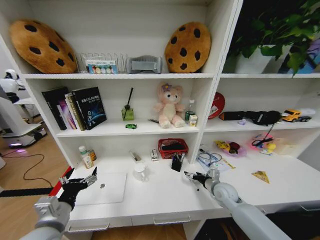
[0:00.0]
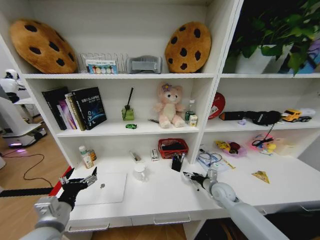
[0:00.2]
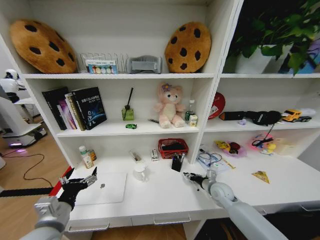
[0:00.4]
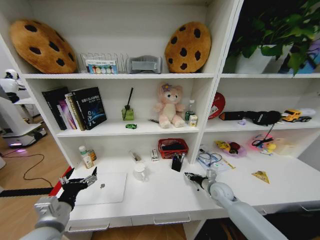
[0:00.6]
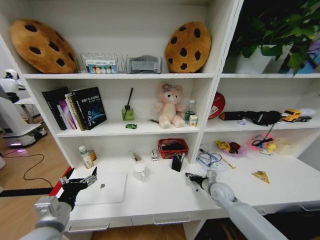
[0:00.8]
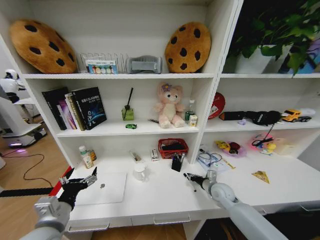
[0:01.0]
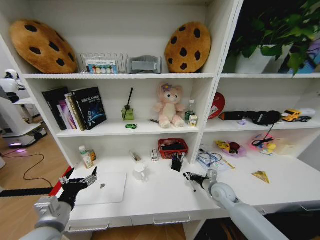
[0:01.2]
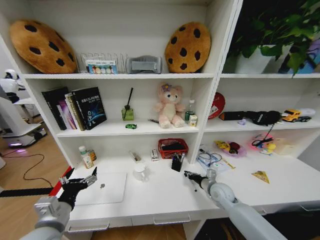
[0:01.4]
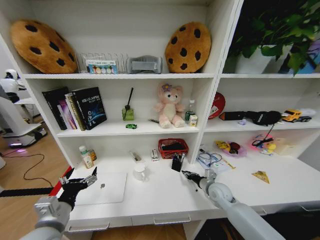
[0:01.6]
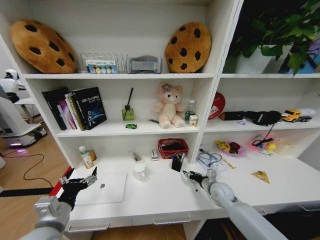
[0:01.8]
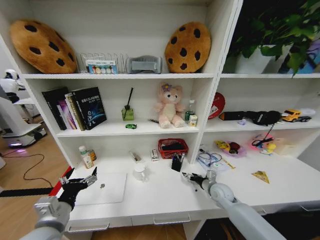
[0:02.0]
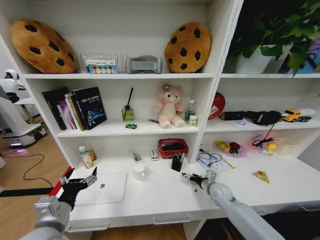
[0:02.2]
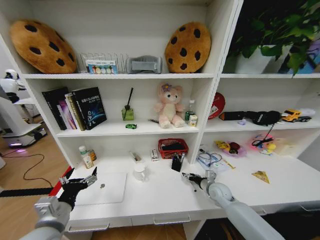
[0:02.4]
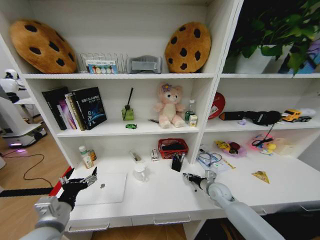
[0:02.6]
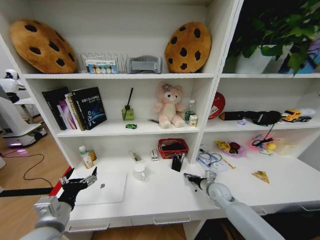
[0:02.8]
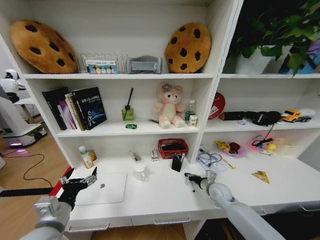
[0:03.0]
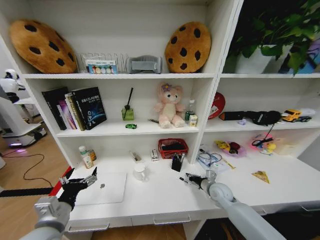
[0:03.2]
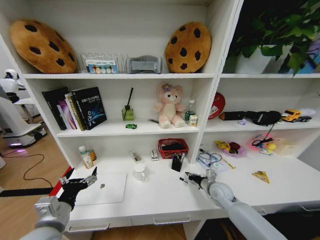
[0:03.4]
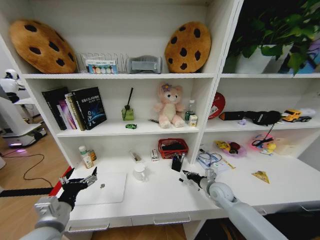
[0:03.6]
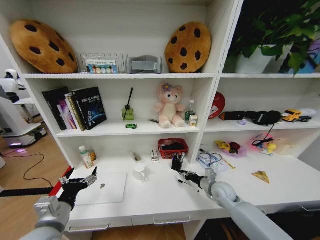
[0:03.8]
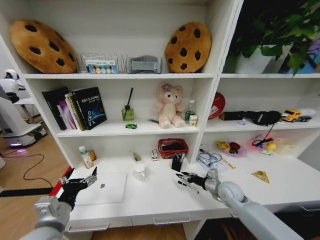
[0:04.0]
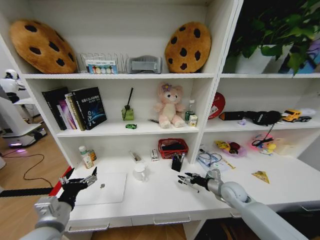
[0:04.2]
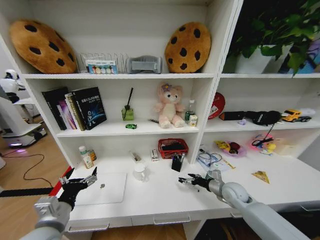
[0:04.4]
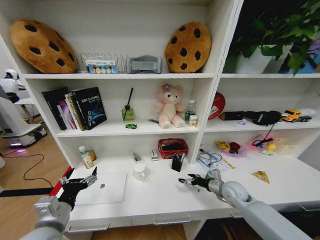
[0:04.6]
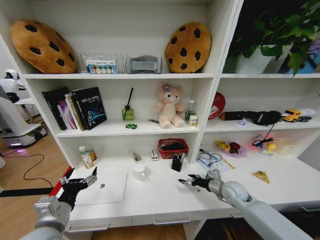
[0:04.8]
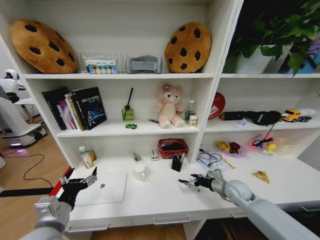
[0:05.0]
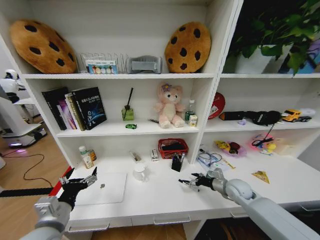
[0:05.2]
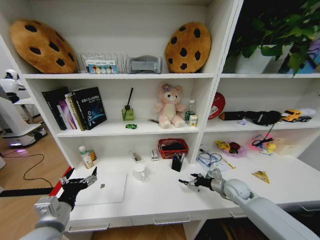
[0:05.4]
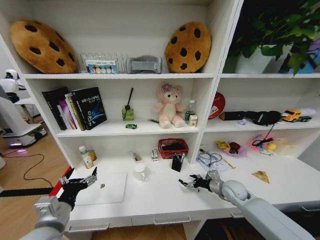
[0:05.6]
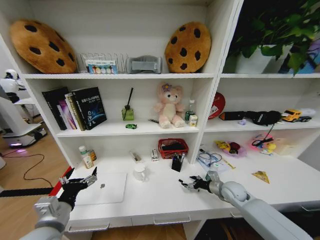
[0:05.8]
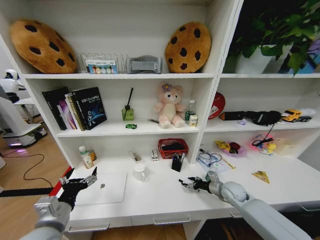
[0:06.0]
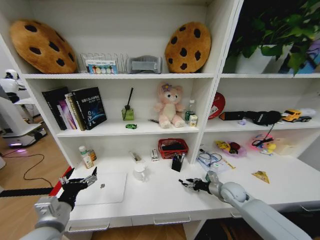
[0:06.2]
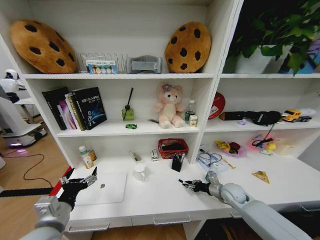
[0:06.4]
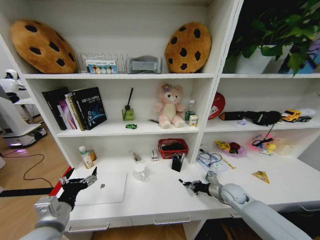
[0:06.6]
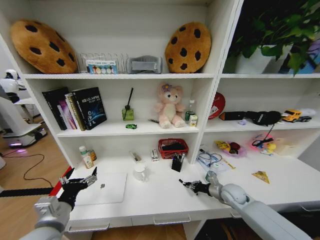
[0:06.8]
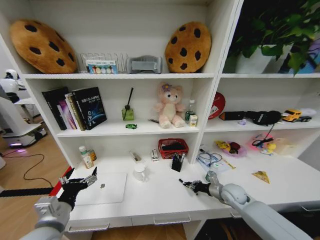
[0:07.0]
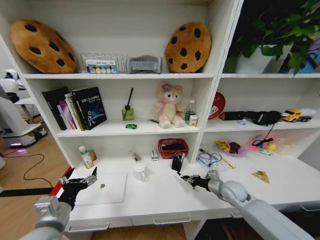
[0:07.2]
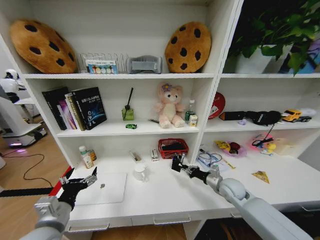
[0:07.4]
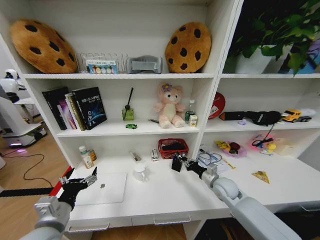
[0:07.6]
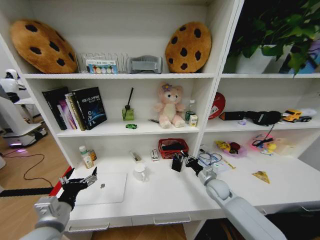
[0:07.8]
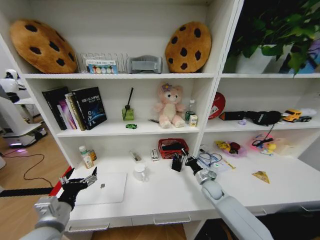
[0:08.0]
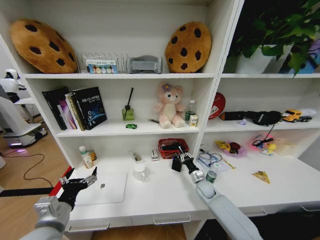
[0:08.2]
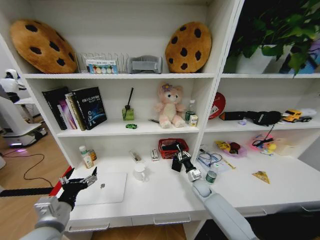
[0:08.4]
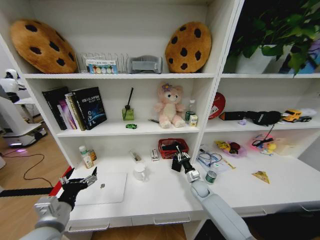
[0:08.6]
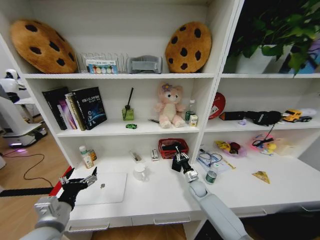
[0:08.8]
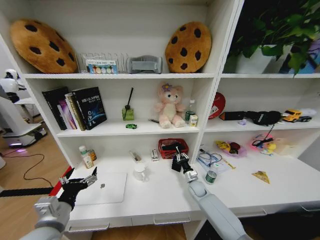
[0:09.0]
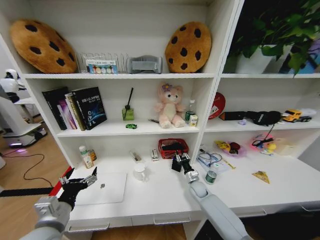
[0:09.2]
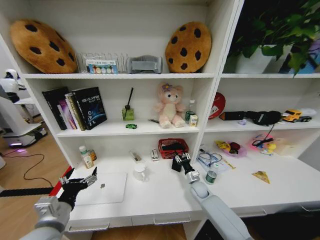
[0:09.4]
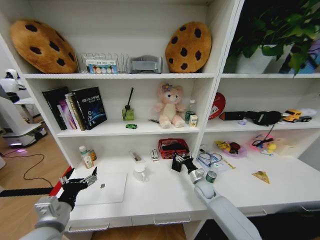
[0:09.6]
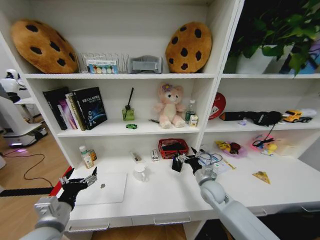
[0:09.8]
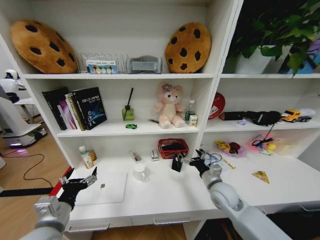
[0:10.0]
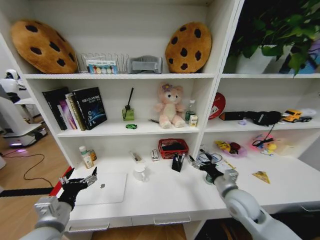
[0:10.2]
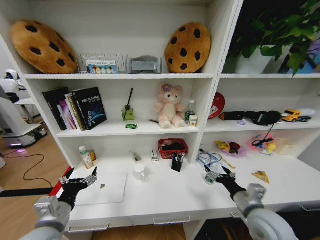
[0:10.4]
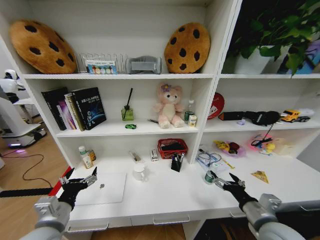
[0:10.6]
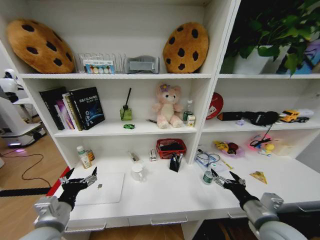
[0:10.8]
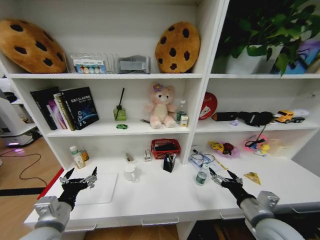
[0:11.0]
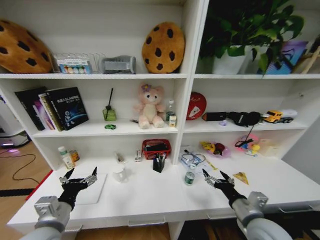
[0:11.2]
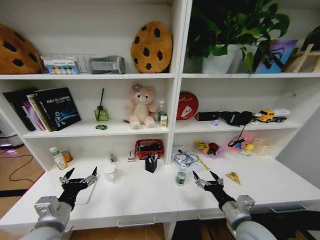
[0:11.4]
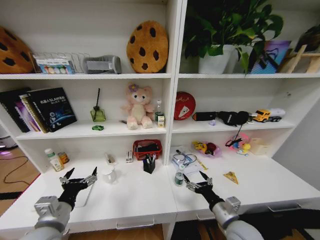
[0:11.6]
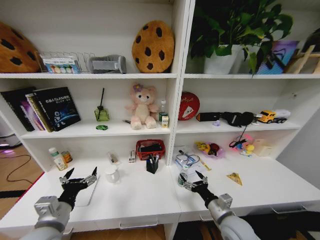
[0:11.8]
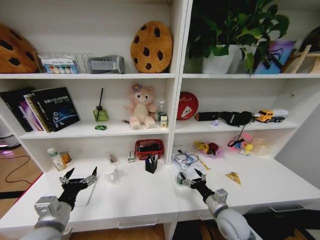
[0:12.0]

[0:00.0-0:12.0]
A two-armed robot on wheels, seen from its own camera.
Task of the whole recording: Organize the objects on the table.
0:00.0 to 0:01.6: The right gripper closes.
0:03.0 to 0:04.4: The right gripper moves some 5 cm, and opens its fingers.
0:04.4 to 0:06.0: The grippers make only small movements.
0:06.0 to 0:07.6: The right gripper heads to the left, covering about 5 cm, and closes up.
0:07.6 to 0:09.0: The right gripper shifts about 15 cm downward, to the left and forward.
0:09.0 to 0:10.4: The right gripper shifts some 30 cm backward and upward, and opens.
0:10.4 to 0:12.0: The right gripper goes about 10 cm downward and to the left.

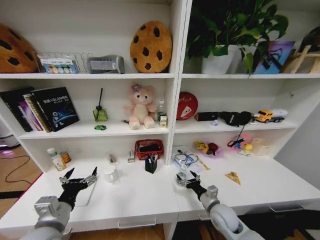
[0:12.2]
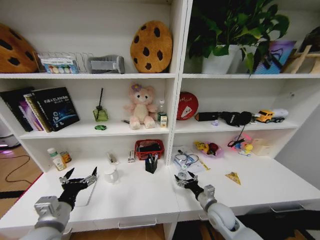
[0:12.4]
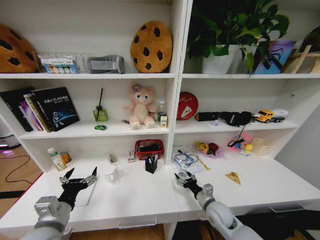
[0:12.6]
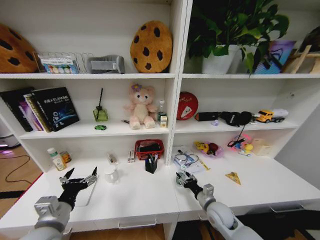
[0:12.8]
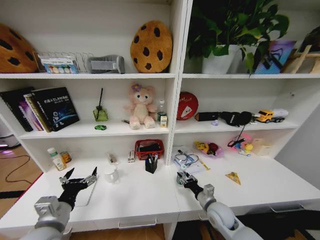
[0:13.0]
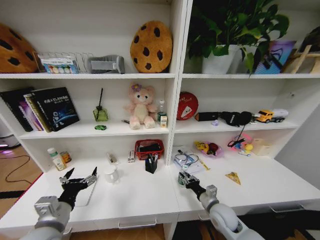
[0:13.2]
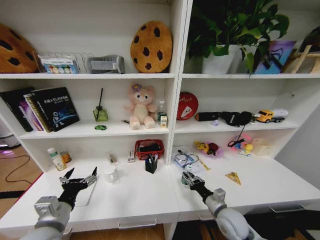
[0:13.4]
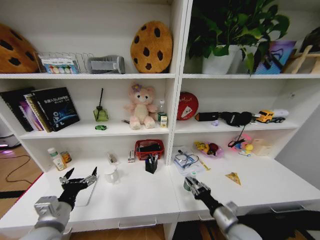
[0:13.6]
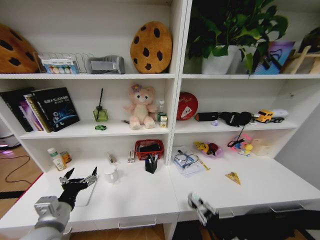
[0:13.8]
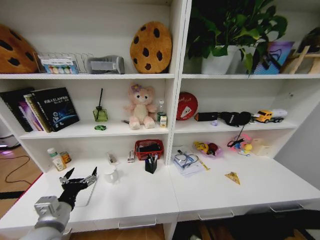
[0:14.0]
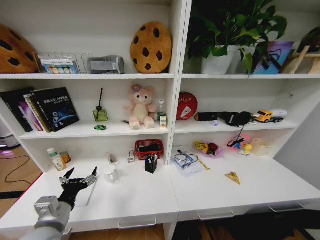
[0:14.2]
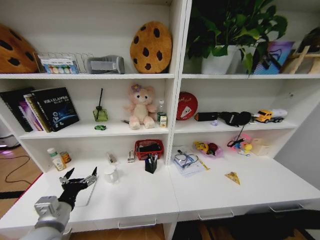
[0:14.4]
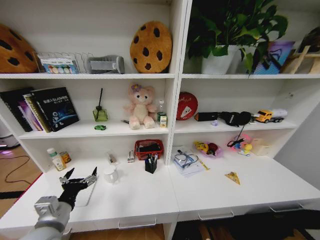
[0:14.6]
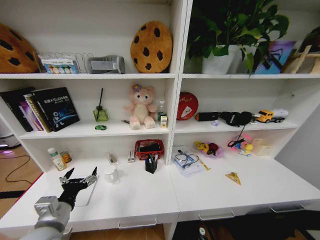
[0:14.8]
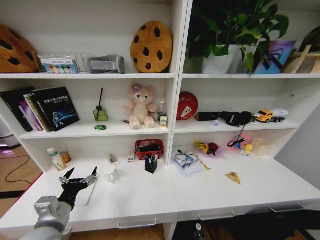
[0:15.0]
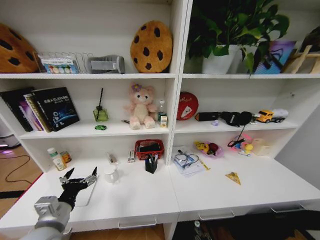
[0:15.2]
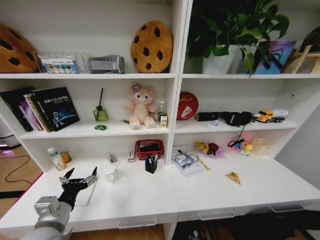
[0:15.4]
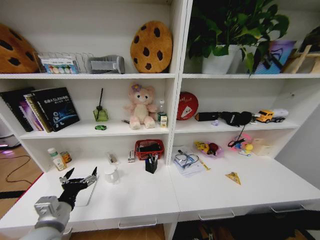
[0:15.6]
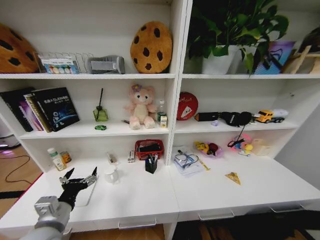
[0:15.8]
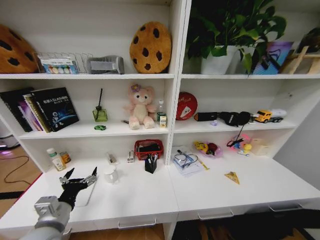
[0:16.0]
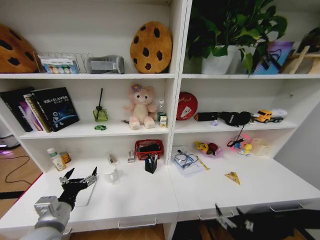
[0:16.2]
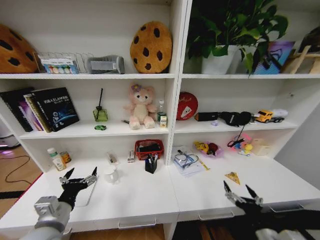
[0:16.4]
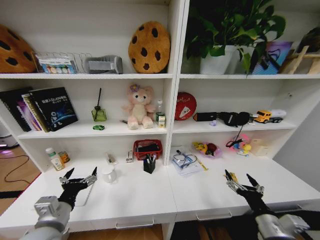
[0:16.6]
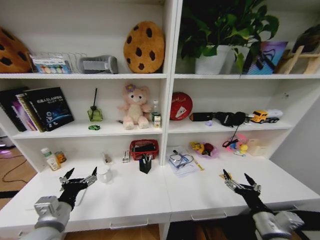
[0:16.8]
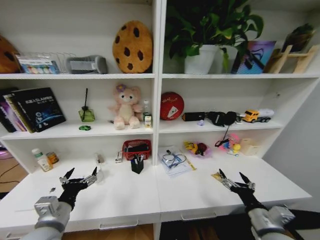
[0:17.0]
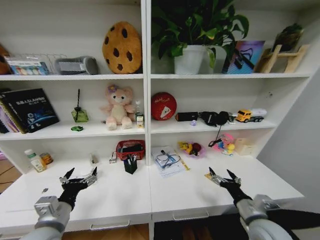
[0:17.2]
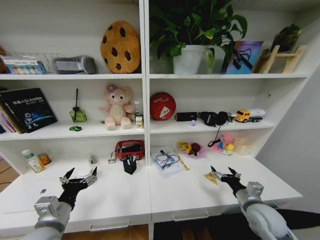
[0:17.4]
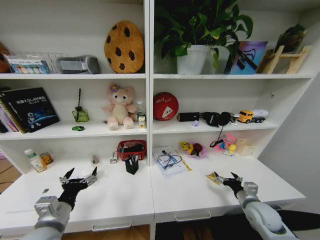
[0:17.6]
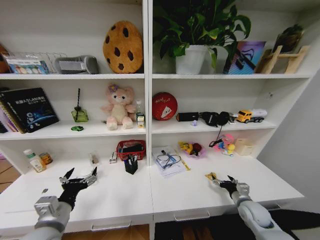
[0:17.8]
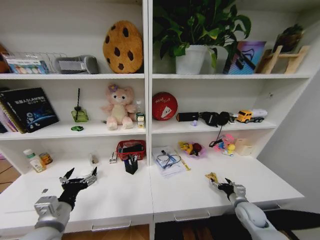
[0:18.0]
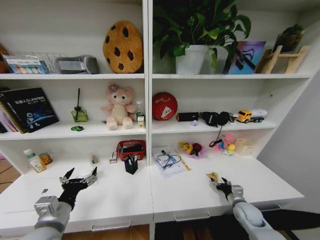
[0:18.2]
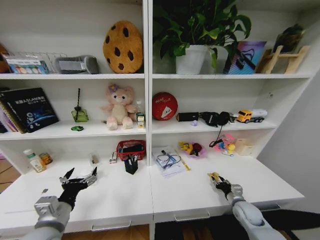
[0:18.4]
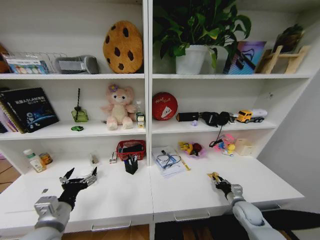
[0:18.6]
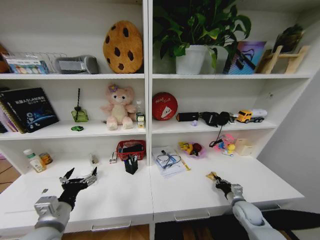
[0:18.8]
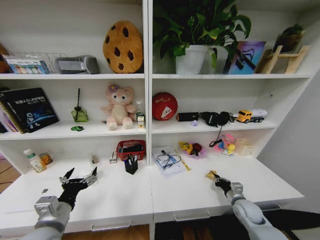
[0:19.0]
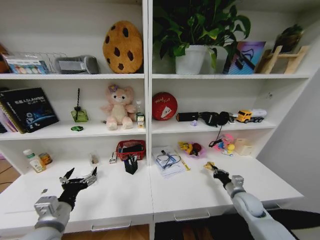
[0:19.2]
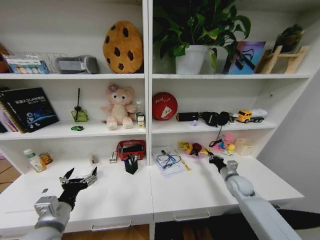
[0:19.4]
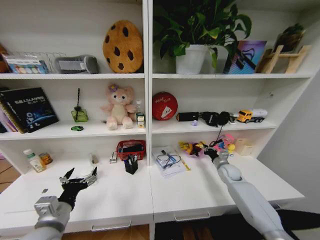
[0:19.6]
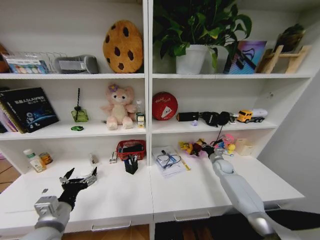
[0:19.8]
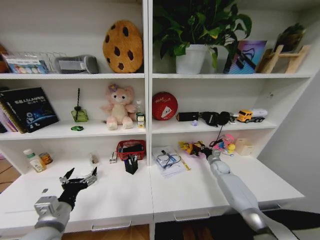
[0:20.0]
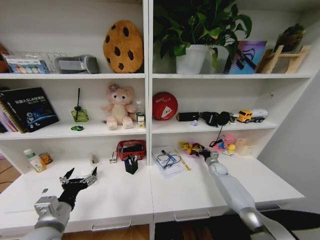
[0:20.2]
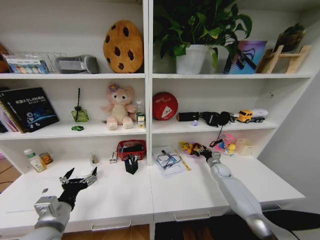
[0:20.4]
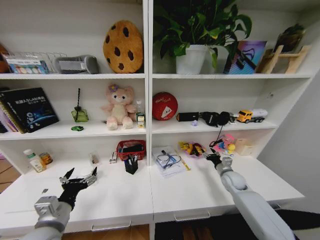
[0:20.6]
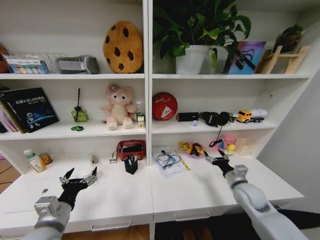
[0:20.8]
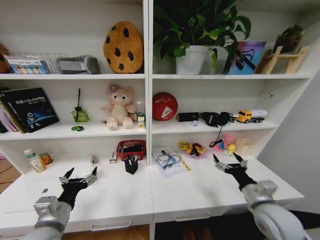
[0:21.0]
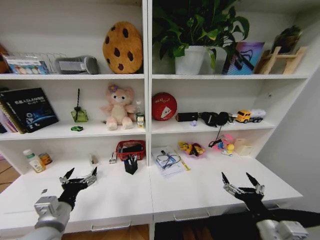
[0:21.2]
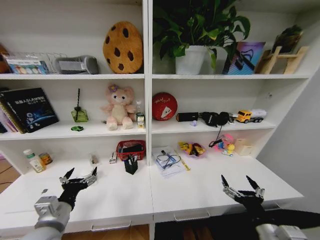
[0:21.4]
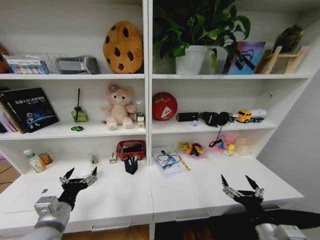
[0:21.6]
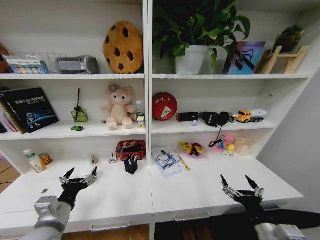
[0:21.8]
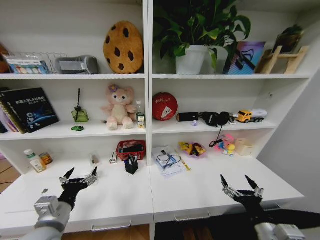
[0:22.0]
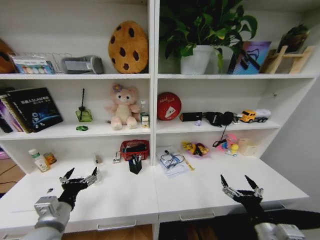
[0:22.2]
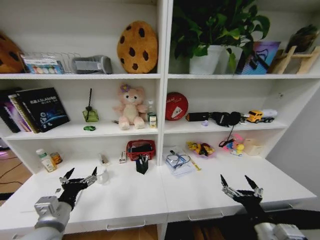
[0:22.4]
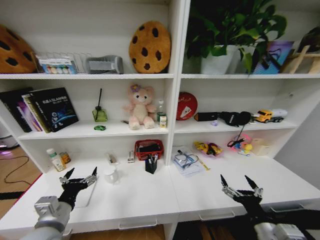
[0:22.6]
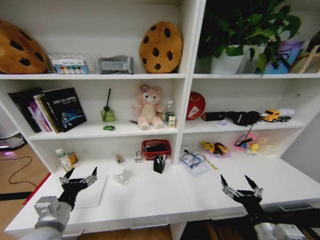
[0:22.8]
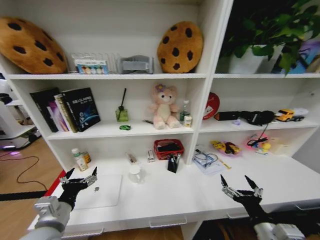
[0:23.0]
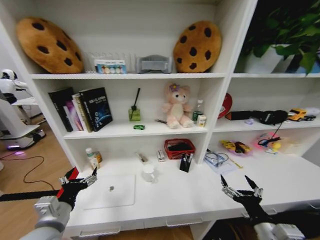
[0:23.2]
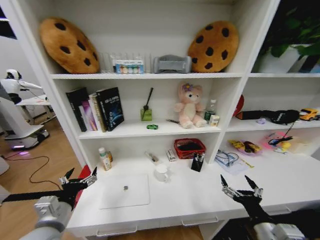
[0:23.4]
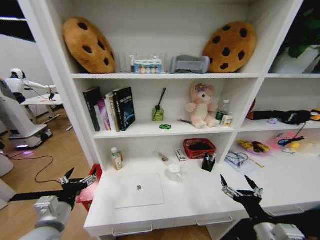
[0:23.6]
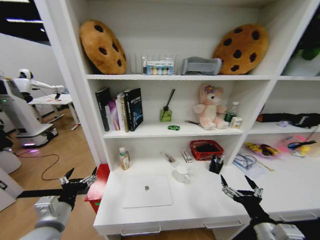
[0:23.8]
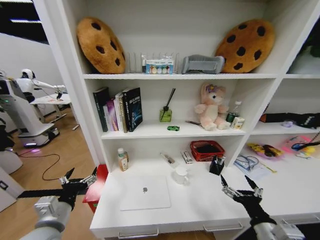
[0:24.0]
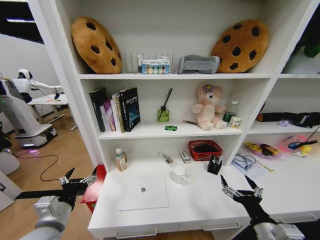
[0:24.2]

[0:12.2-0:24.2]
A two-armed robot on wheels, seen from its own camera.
Task of the whole recording: Organize the objects on the table.
0:12.2 to 0:13.8: The right gripper heads backward, covering approximately 15 cm, and closes its fingers.
0:13.8 to 0:15.2: The right gripper travels downward by roughly 30 cm.
0:15.2 to 0:16.6: The right gripper shifts some 40 cm upward, and opens.
0:16.6 to 0:18.2: The right gripper is displaced forward, downward and to the right by roughly 25 cm.
0:18.2 to 0:19.8: The right gripper travels forward by about 20 cm, and closes up.
0:19.8 to 0:21.2: The right gripper shifts roughly 35 cm backward, and opens up.
